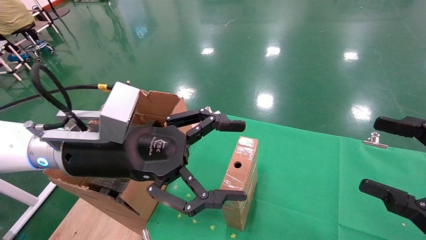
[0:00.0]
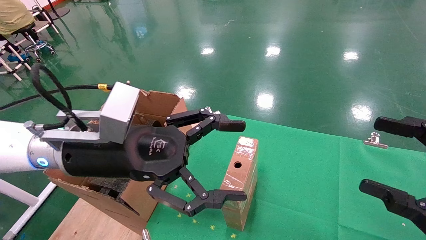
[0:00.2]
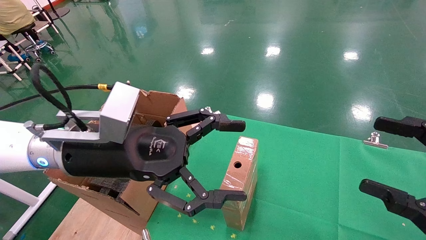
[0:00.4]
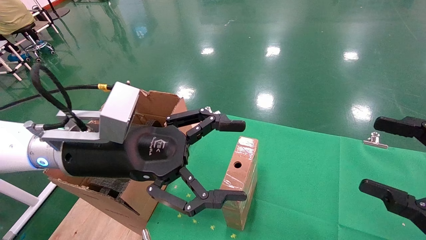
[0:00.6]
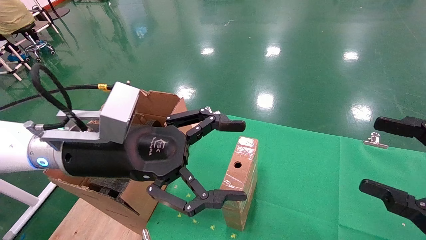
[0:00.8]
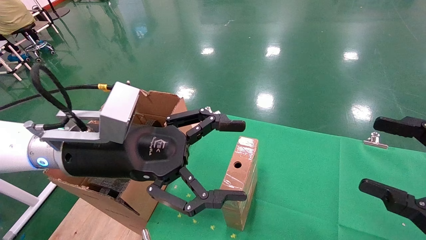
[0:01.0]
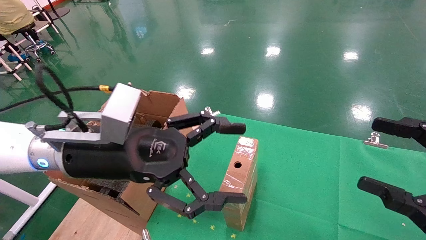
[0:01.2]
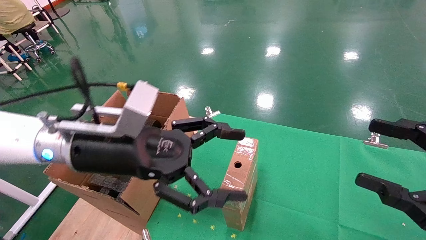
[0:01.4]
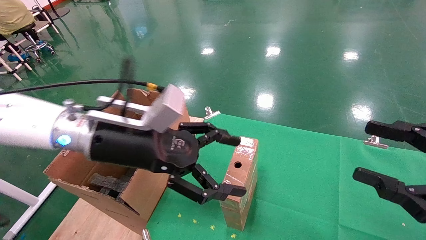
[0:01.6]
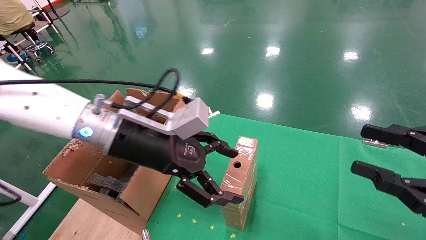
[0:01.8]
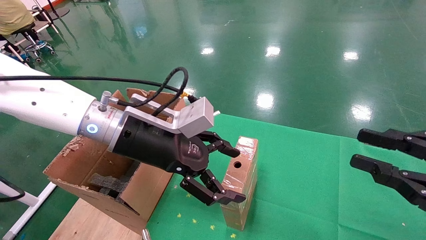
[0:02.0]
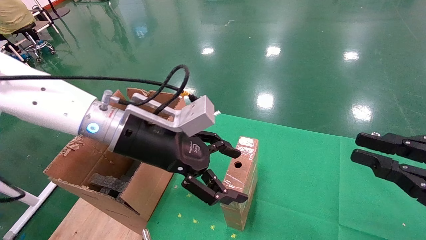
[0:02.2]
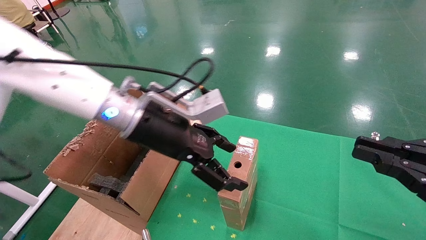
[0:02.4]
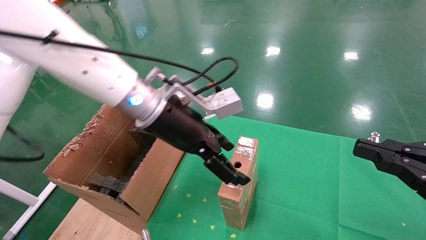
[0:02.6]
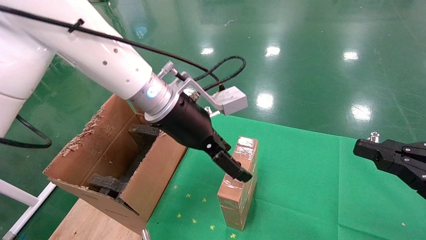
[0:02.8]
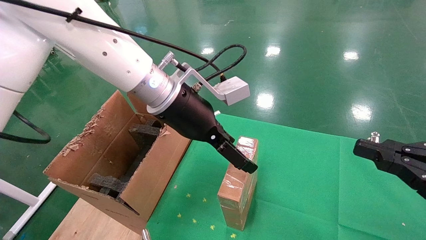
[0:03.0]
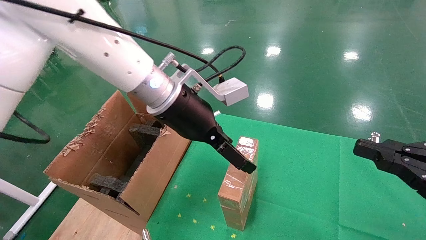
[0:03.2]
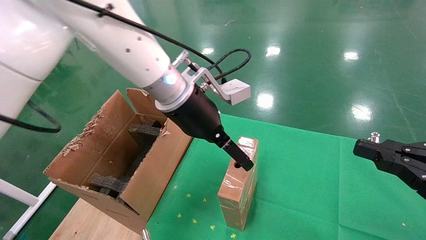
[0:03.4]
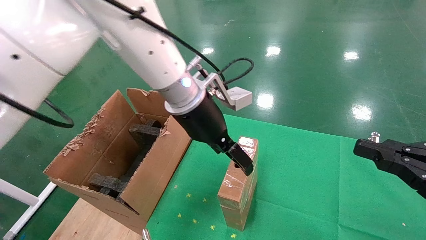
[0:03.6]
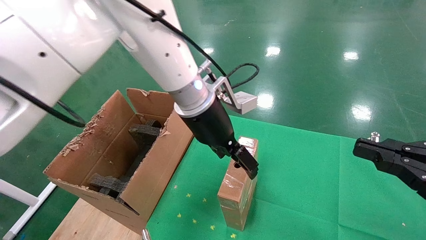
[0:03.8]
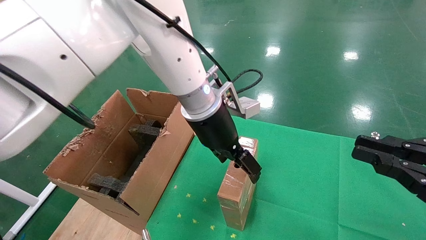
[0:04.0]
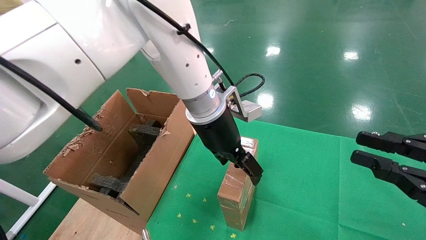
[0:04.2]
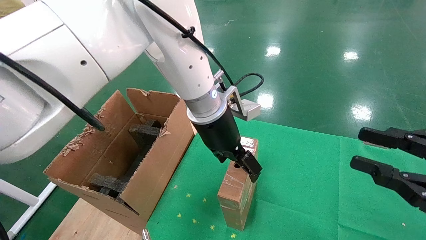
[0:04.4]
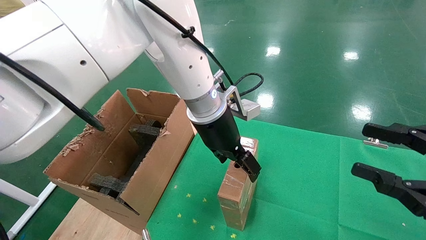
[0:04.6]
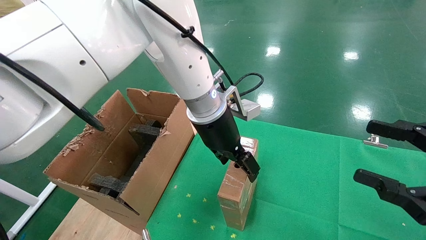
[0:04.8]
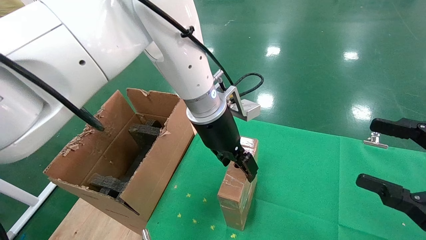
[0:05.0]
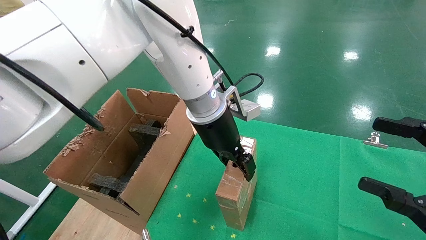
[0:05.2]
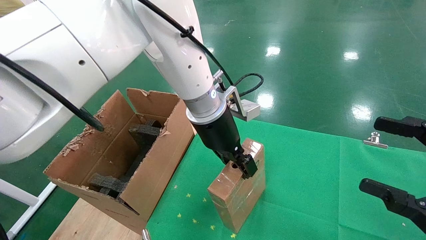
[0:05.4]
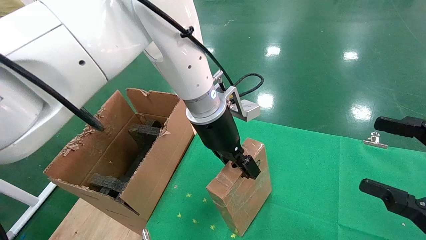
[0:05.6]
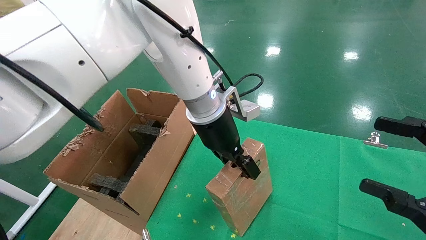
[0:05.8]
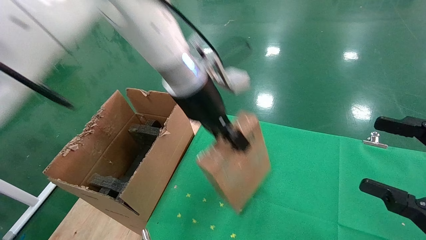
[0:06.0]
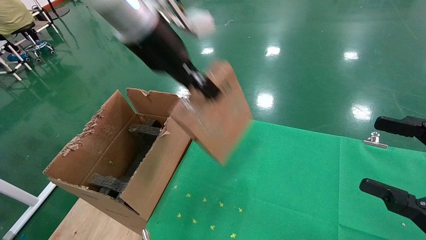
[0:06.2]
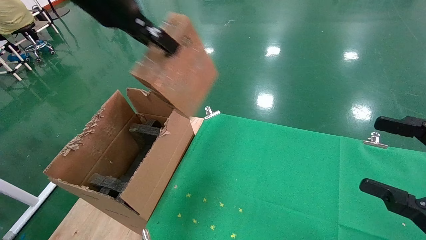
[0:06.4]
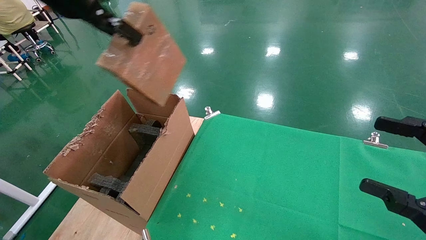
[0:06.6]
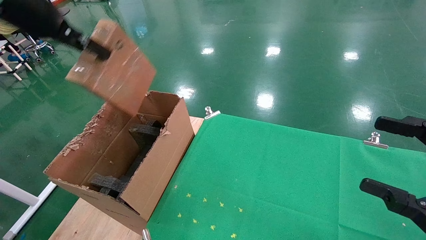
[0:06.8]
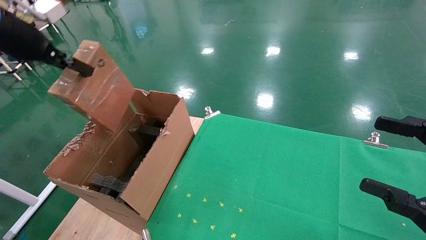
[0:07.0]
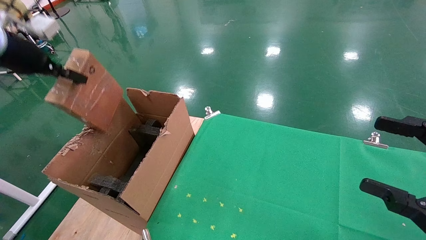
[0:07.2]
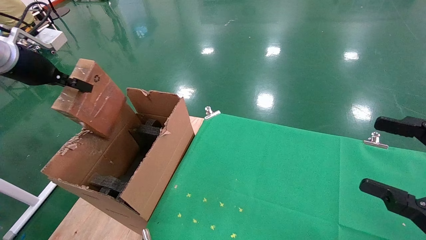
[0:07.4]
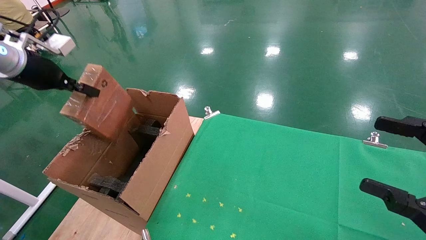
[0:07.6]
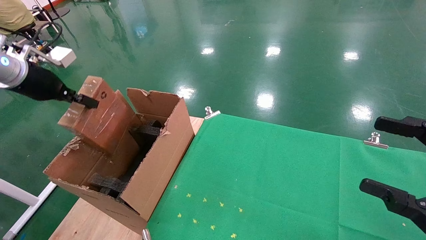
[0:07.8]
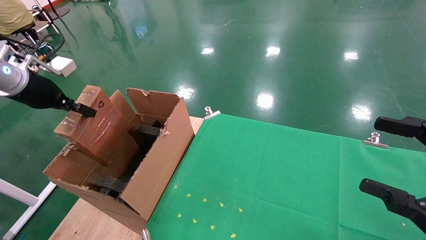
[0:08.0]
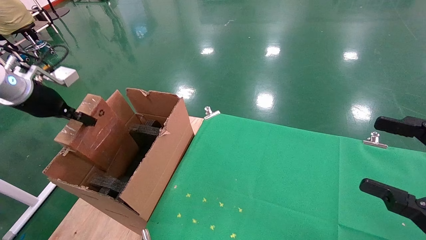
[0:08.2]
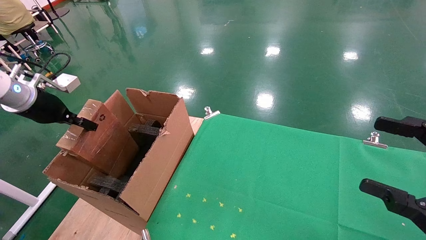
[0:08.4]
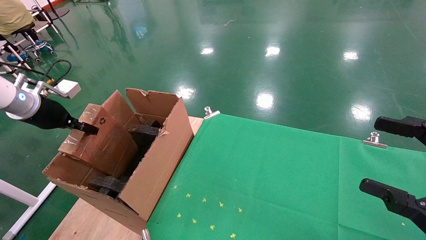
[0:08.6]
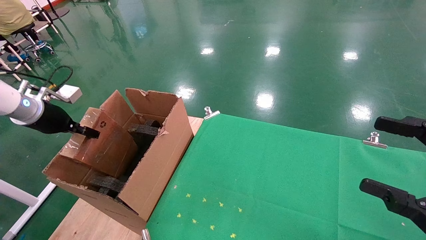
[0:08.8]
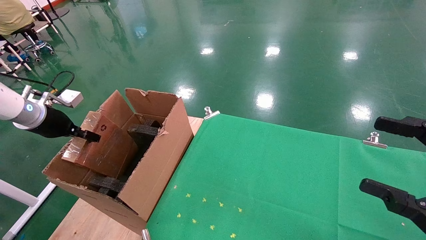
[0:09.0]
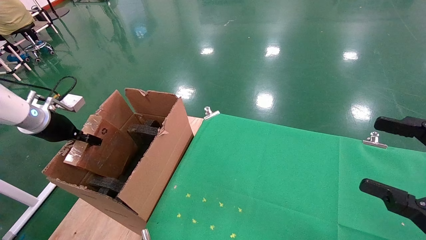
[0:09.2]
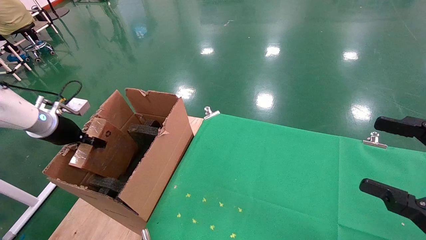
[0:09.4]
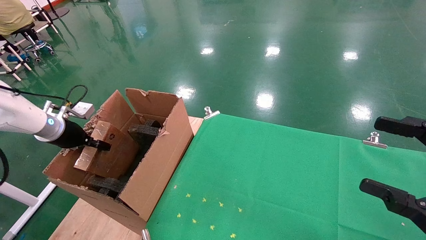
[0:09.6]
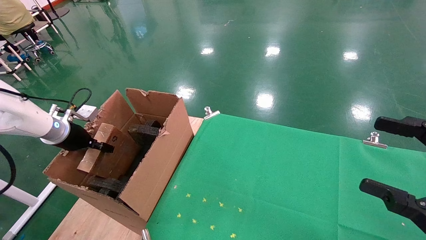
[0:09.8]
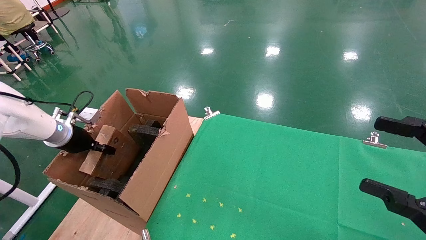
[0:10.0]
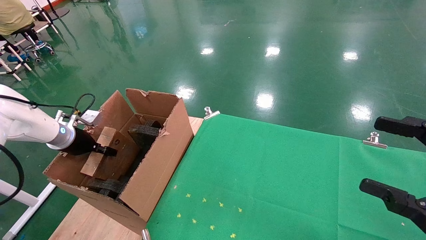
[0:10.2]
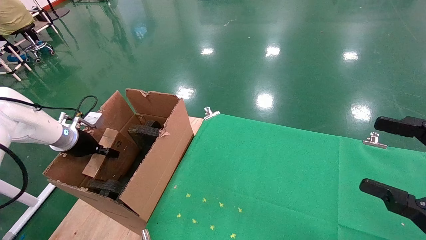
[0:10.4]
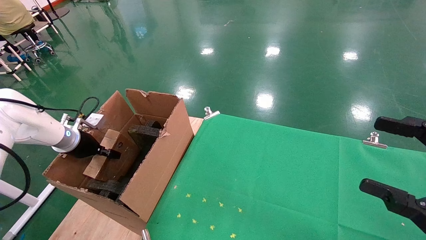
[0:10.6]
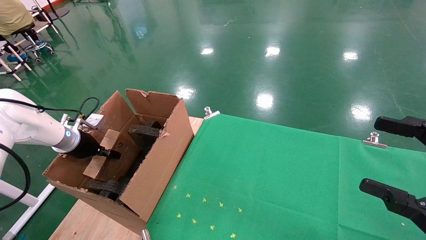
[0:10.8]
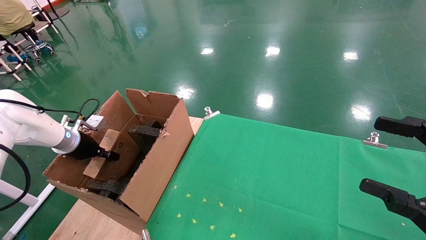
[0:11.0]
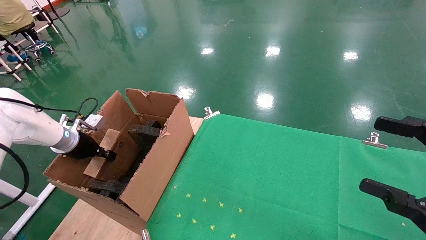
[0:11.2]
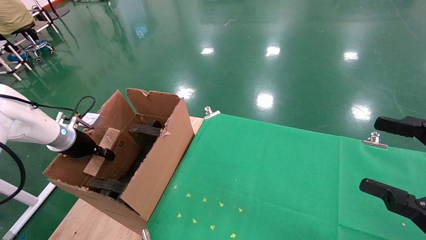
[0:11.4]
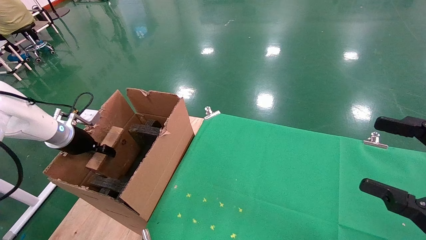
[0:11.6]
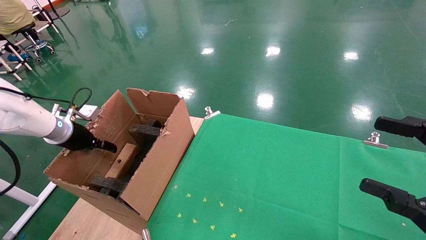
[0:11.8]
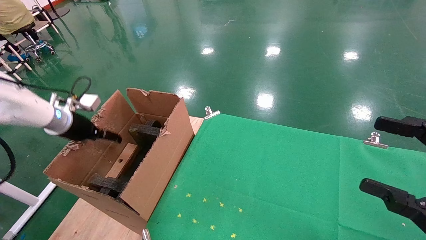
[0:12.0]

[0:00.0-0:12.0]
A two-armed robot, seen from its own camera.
Task of the whole recording: using a robotic arm to pick up a cardboard box and palace it the carton.
Step, 0:01.6 to 0:05.4: Pick up the mouse and the power cord paper box.
0:01.6 to 0:03.0: The right gripper closes up. Meanwhile the left gripper heads forward, to the right and upward, covering some 10 cm.
0:03.0 to 0:04.4: The left gripper is displaced to the right by about 5 cm.
0:04.4 to 0:06.0: The left gripper moves upward and to the left, roughly 10 cm, and closes its fingers; the right gripper opens up.
0:06.0 to 0:07.6: The left gripper goes about 35 cm to the left.
0:07.6 to 0:09.0: The left gripper goes roughly 15 cm downward.
0:09.0 to 0:10.4: The left gripper heads downward, covering some 10 cm.
0:10.4 to 0:12.0: The left gripper is displaced upward by some 10 cm, and opens its fingers.

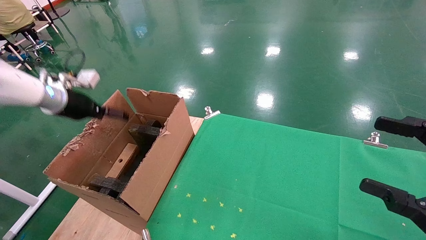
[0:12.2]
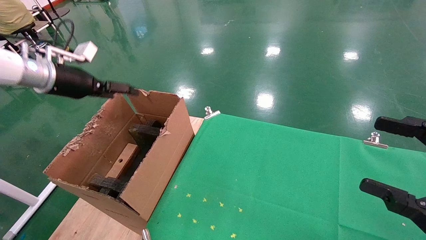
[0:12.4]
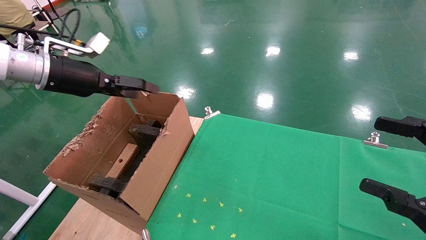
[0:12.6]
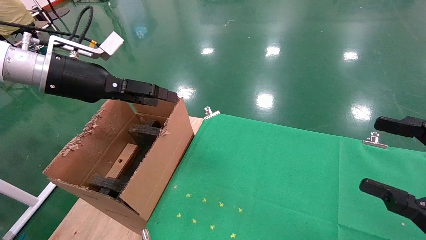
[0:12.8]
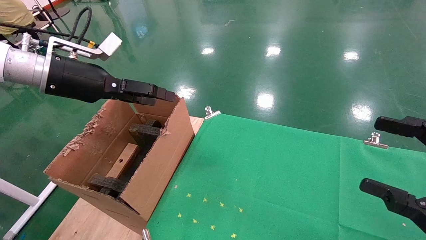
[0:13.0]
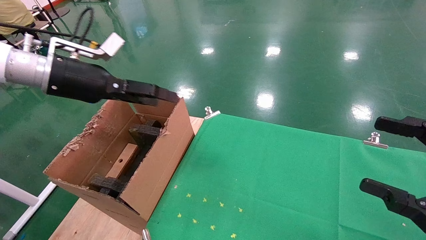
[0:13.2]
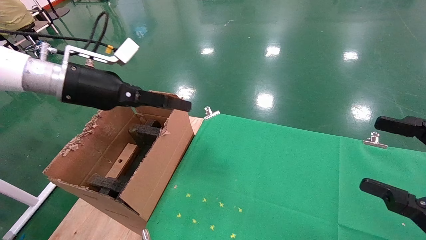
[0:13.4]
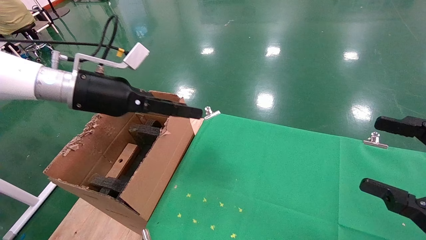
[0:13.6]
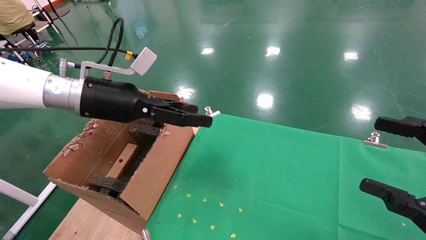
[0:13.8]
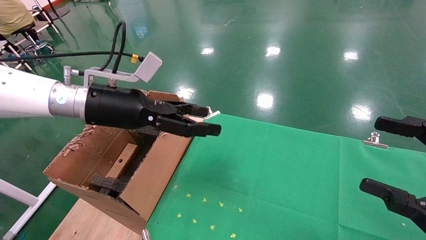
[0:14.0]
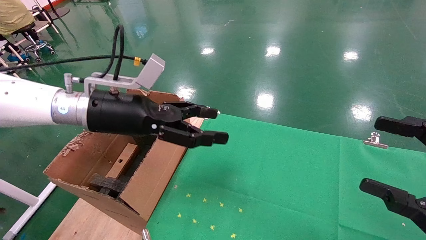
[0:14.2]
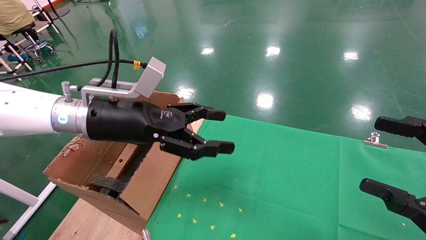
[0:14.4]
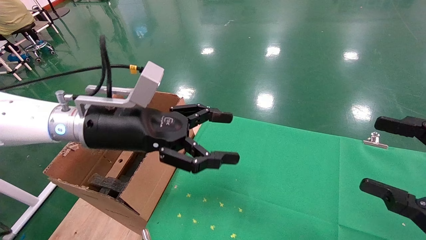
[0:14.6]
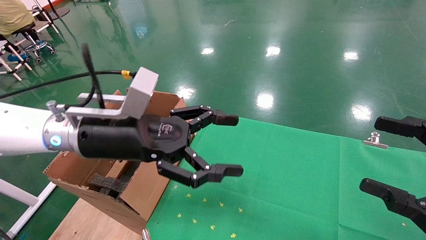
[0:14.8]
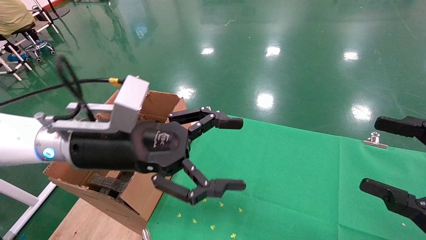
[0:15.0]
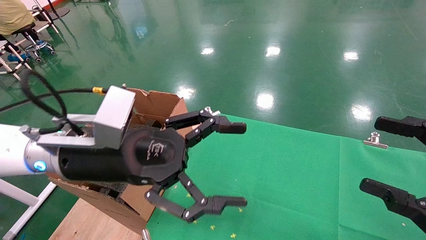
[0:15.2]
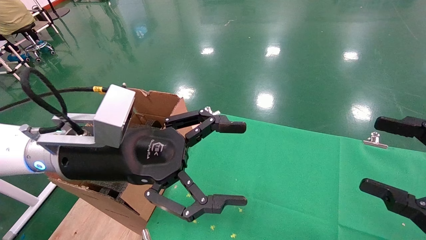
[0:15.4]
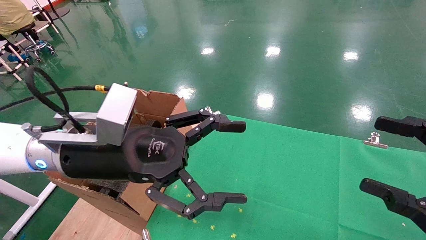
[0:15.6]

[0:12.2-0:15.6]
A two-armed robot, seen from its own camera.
Task of the whole recording: using a robotic arm to pick up a cardboard box and palace it the carton.
0:12.2 to 0:13.8: The left gripper shifts about 15 cm to the right.
0:13.8 to 0:15.6: The left gripper moves backward and to the right, roughly 10 cm.

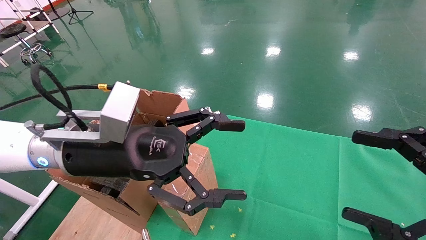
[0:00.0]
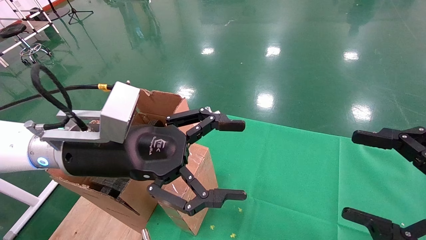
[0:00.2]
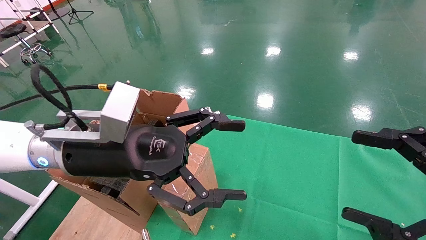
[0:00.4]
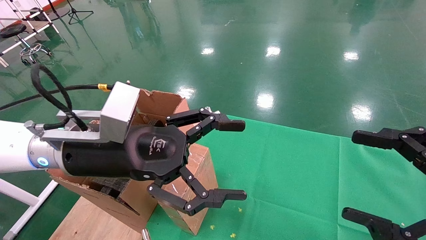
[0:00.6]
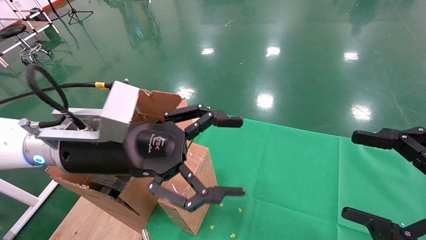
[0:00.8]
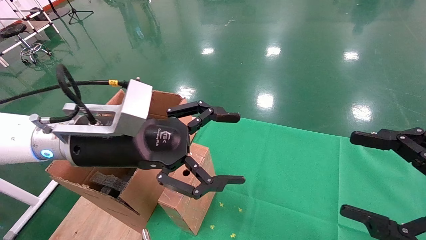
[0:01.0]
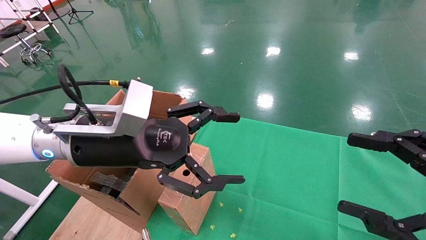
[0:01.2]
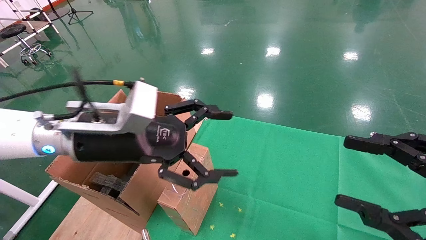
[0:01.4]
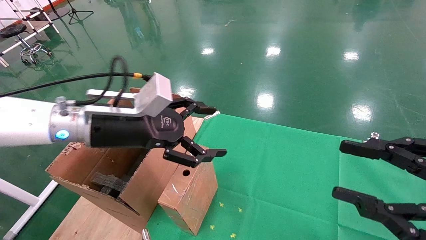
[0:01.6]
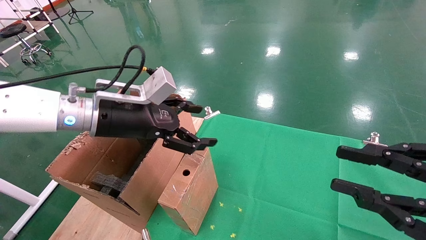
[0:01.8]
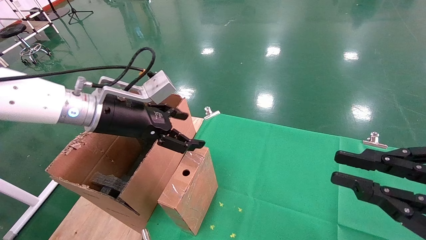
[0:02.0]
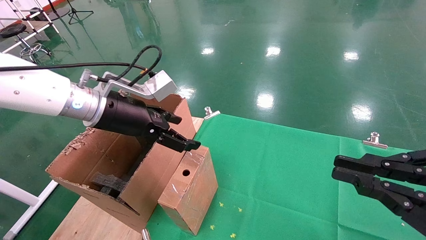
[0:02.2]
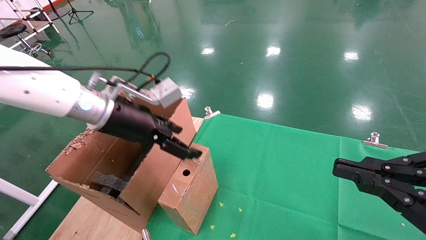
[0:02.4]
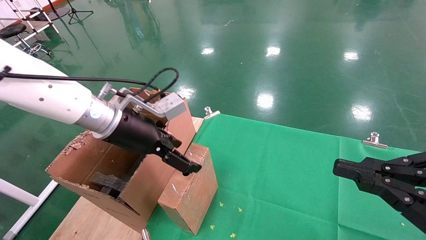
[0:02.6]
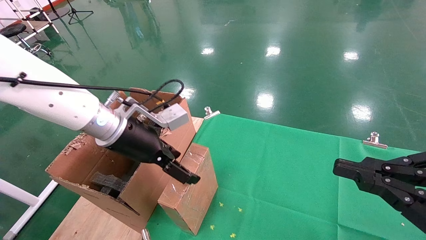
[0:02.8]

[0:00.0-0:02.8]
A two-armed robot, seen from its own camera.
Task of the whole recording: using a robotic arm to pick up a cardboard box and palace it the carton.
0:00.0 to 0:01.4: There are only small adjustments of the grippers.
0:01.4 to 0:02.8: The left gripper moves forward, some 5 cm. Meanwhile the right gripper closes up.
